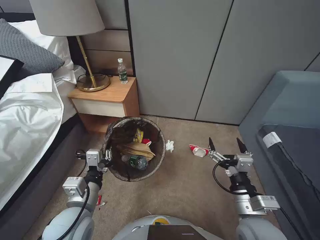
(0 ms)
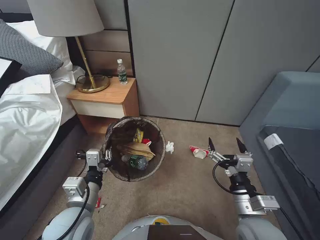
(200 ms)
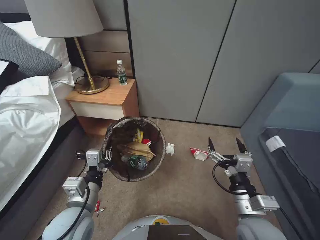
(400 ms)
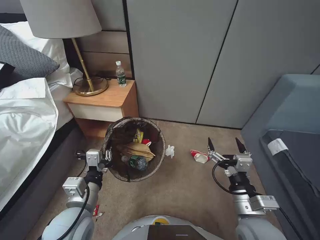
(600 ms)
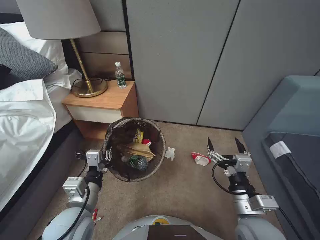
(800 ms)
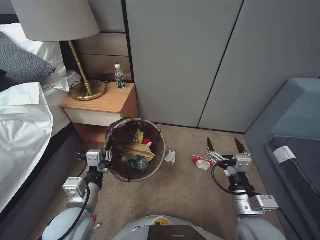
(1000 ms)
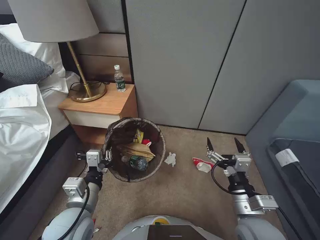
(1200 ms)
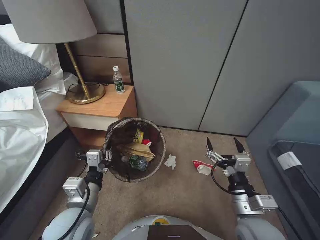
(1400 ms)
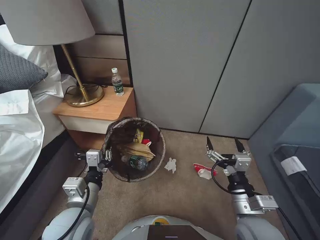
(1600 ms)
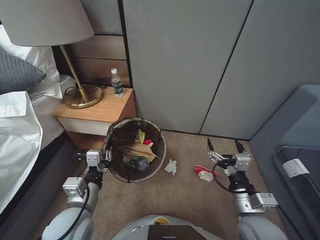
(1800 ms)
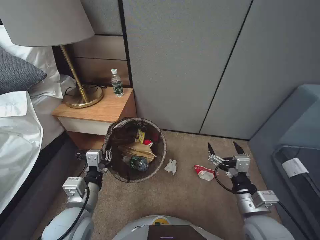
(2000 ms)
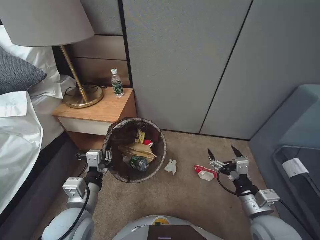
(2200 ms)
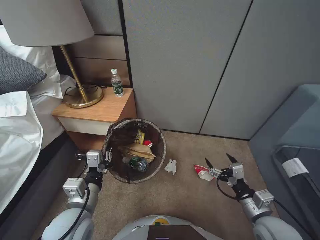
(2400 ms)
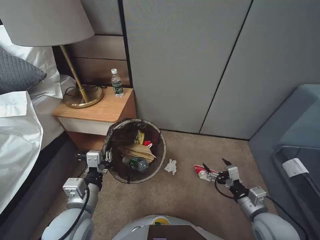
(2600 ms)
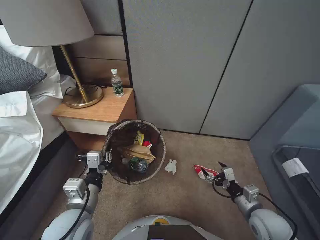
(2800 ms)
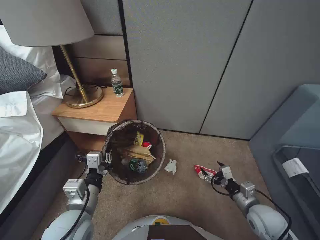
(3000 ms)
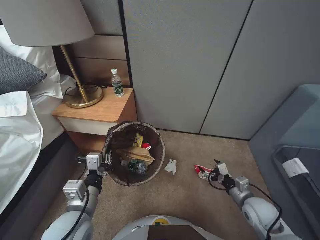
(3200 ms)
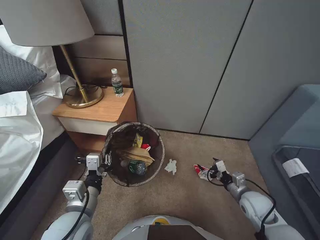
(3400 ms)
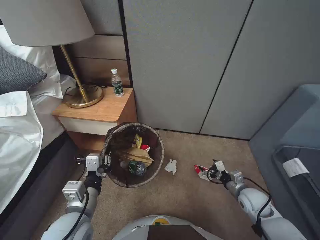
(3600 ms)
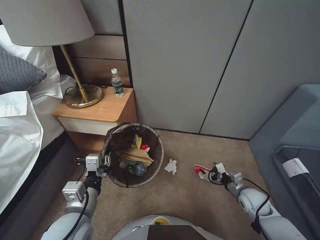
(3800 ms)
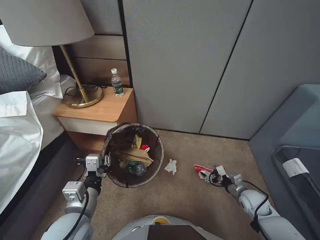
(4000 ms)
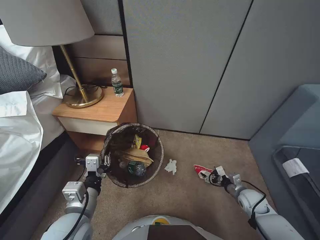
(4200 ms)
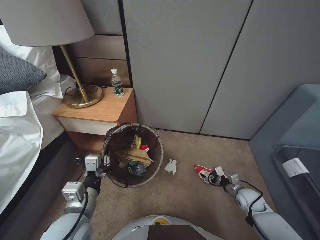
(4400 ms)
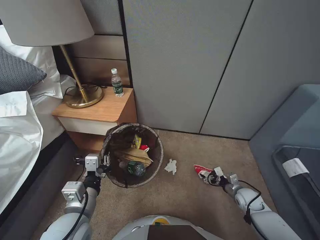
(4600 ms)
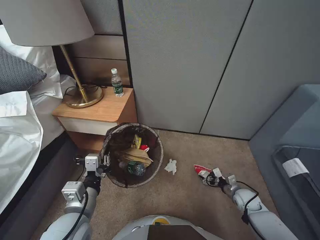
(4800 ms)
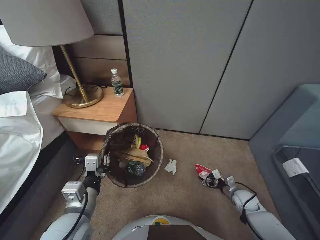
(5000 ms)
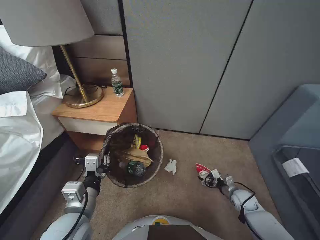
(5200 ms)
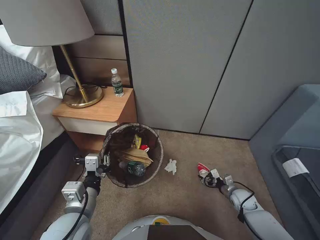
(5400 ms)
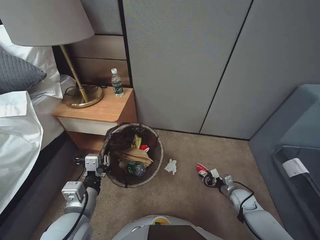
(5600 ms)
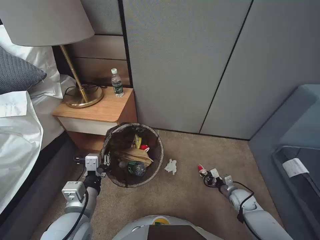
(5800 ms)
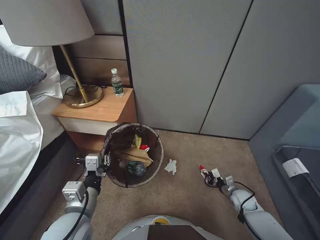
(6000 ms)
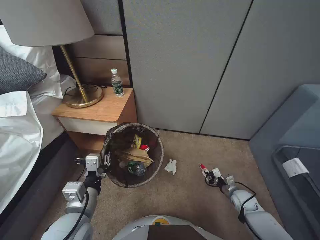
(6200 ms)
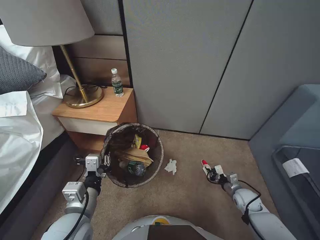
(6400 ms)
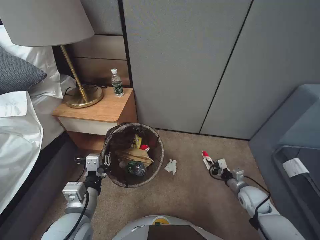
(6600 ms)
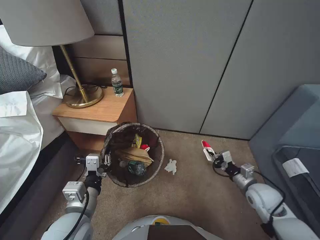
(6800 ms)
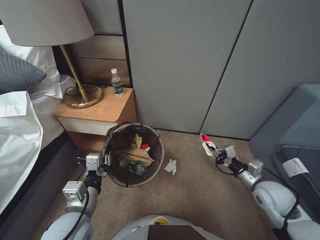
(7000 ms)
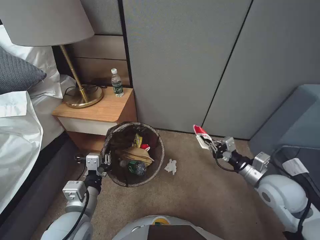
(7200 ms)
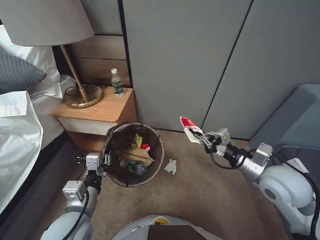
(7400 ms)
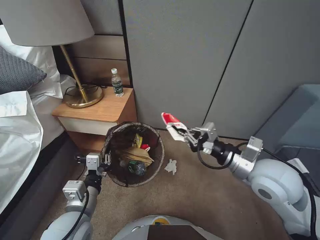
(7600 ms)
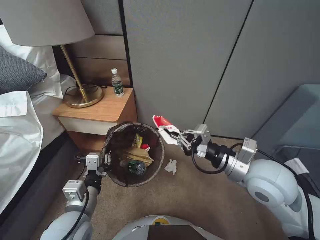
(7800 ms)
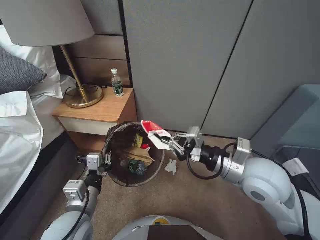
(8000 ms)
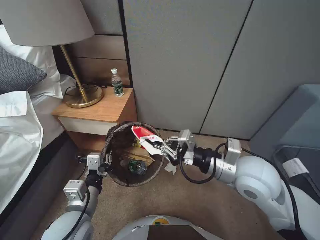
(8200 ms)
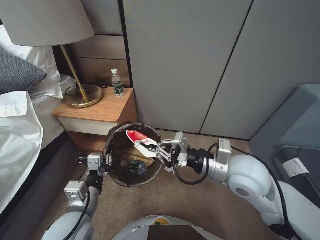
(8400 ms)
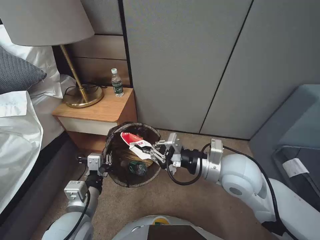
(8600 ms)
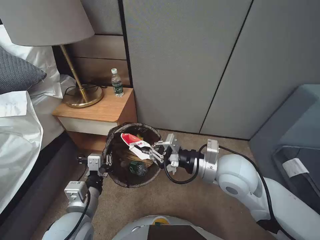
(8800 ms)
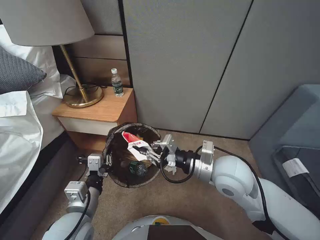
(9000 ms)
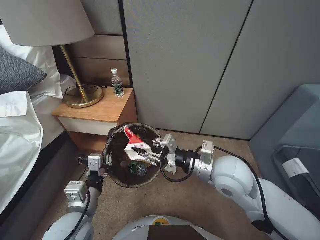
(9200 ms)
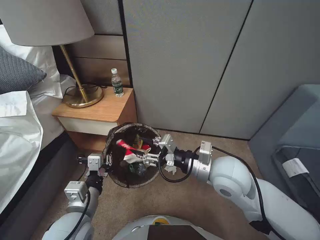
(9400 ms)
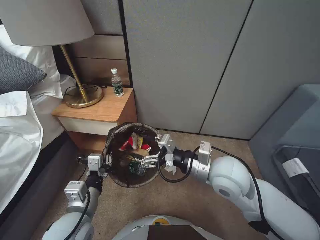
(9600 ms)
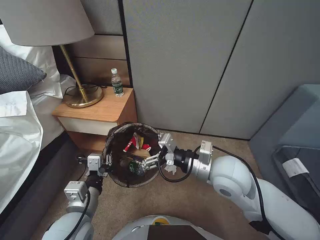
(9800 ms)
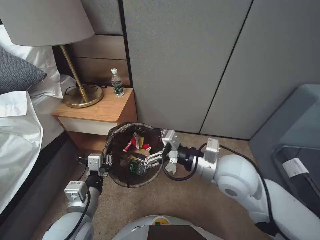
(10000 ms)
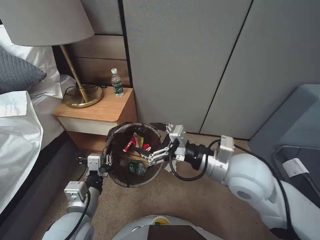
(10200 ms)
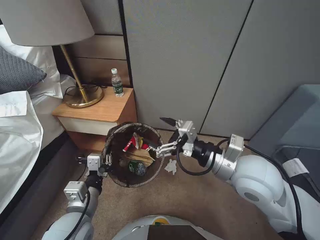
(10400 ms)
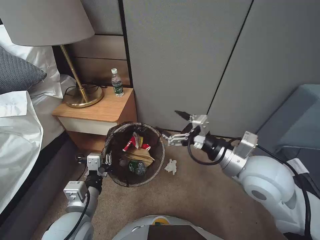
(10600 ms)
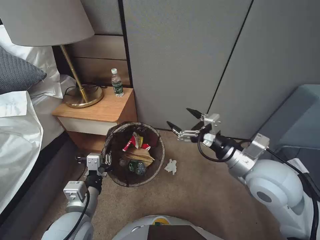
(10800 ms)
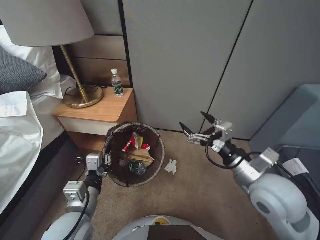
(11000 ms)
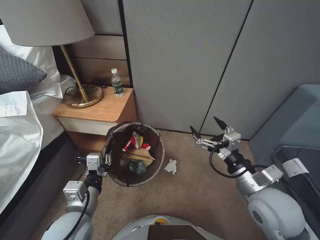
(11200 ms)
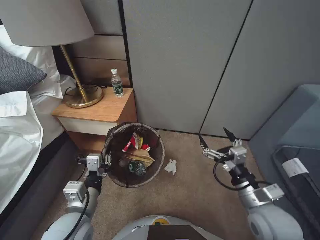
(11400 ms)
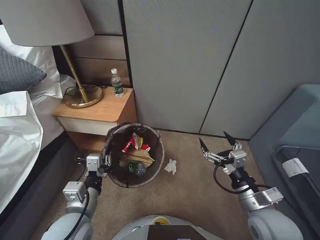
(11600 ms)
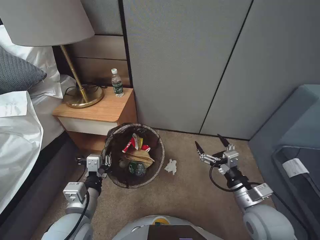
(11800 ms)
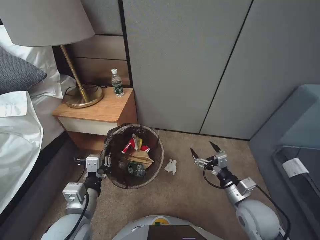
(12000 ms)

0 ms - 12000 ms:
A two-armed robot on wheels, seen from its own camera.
Task of the whole recording: Pick up the trash bin, then pick up the garbage from the floor and place it into the trash bin.
1600 ms - 3000 ms: The right gripper heads to the right and downward, covering about 15 cm.
3000 ms - 4400 ms: The right gripper shifts roughly 15 cm downward, forward and to the right.
4400 ms - 6000 ms: The right gripper closes.
6000 ms - 7600 ms: The right gripper is displaced upward by some 35 cm.
7600 ms - 9000 ms: The right gripper heads to the left, covering some 10 cm.
9000 ms - 10400 ms: The right gripper opens.
10400 ms - 12000 ms: The right gripper is displaced downward and to the right by roughly 20 cm.

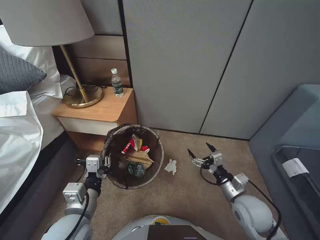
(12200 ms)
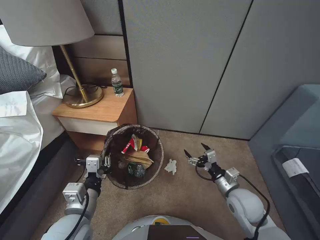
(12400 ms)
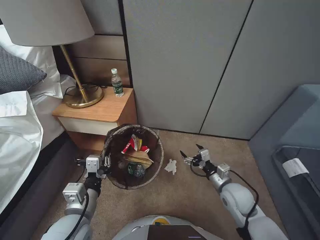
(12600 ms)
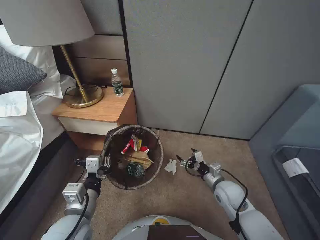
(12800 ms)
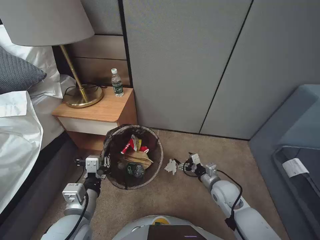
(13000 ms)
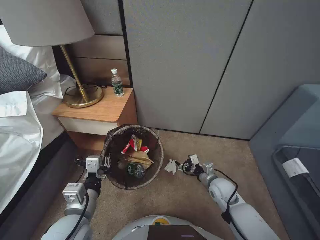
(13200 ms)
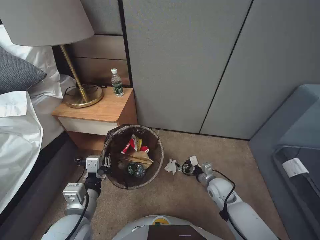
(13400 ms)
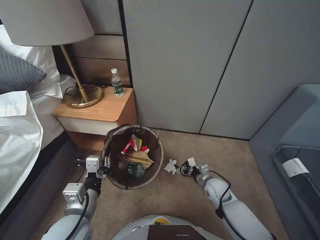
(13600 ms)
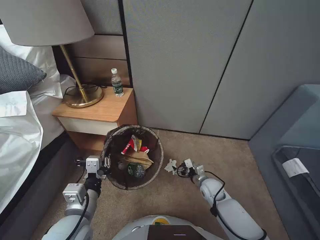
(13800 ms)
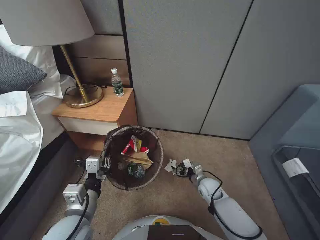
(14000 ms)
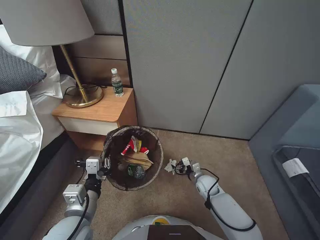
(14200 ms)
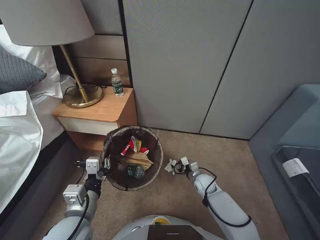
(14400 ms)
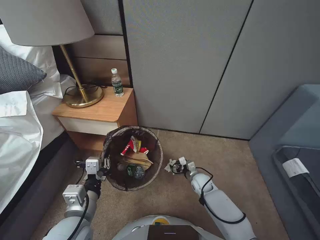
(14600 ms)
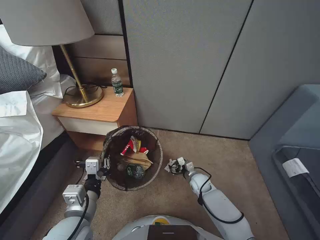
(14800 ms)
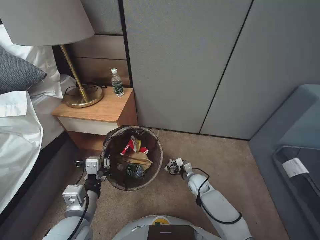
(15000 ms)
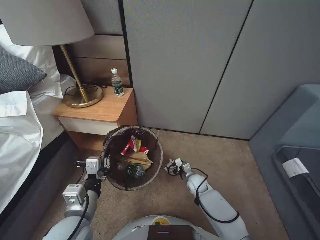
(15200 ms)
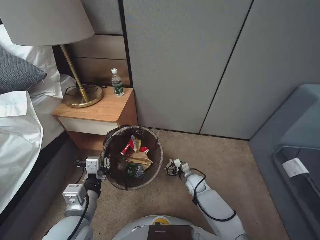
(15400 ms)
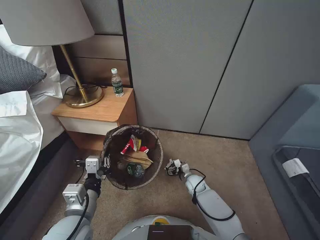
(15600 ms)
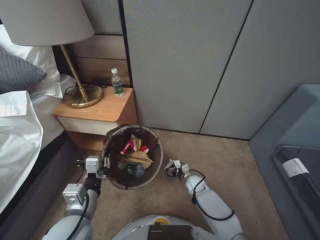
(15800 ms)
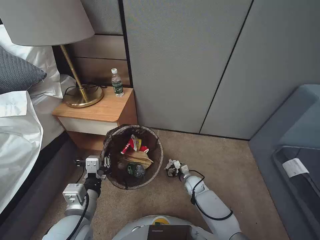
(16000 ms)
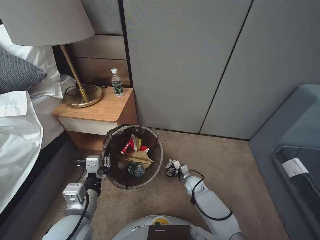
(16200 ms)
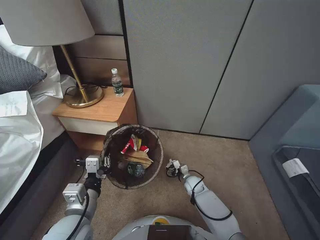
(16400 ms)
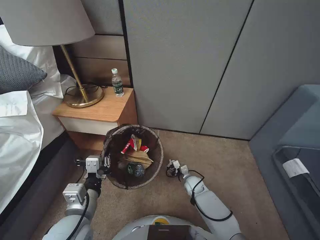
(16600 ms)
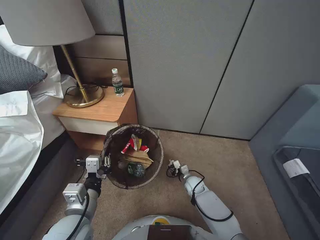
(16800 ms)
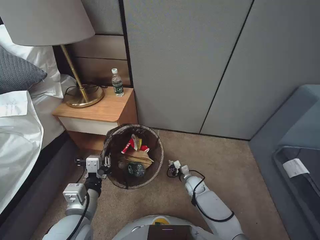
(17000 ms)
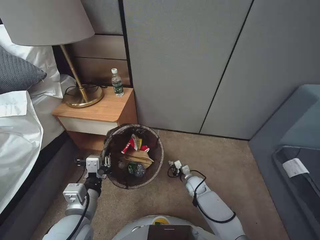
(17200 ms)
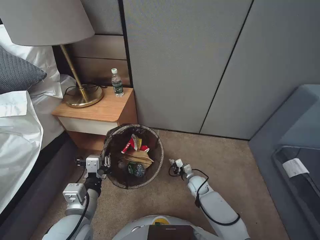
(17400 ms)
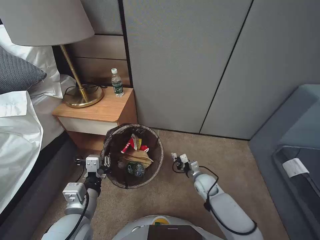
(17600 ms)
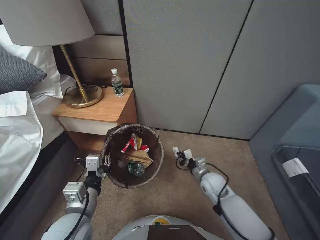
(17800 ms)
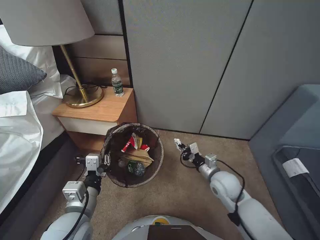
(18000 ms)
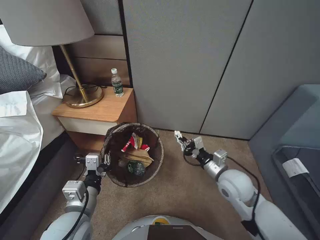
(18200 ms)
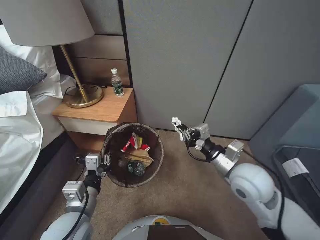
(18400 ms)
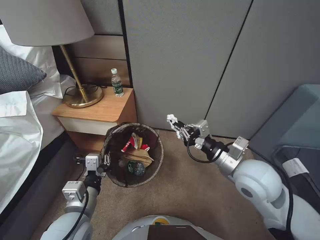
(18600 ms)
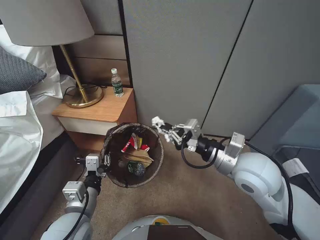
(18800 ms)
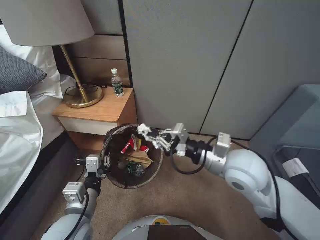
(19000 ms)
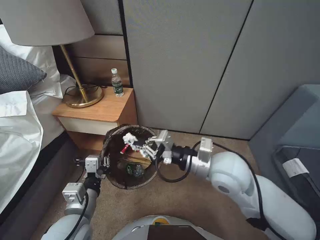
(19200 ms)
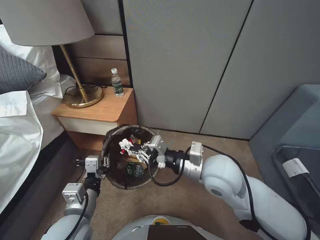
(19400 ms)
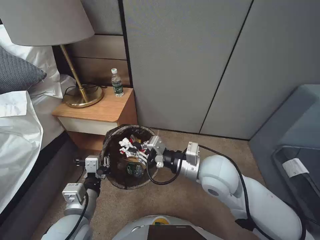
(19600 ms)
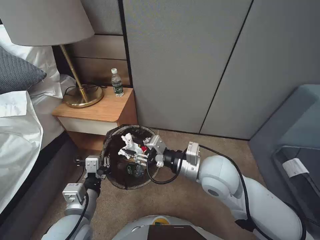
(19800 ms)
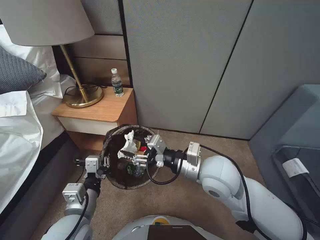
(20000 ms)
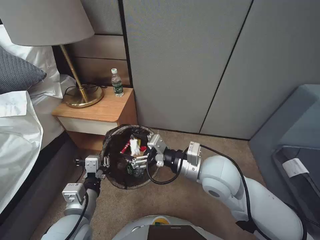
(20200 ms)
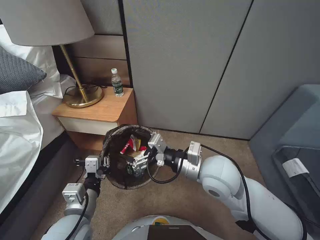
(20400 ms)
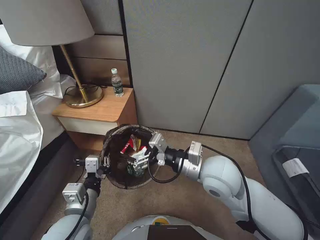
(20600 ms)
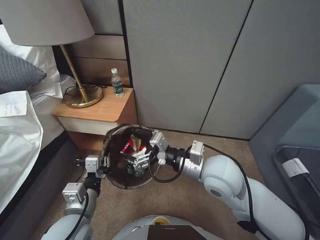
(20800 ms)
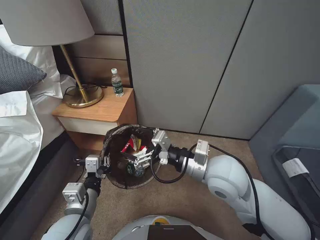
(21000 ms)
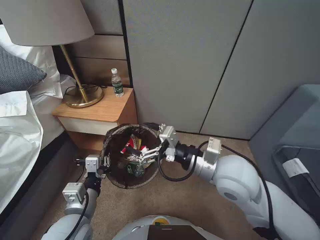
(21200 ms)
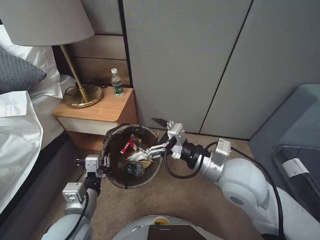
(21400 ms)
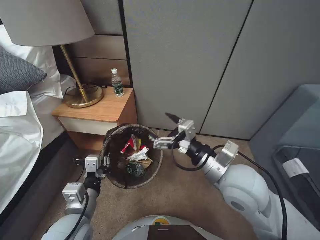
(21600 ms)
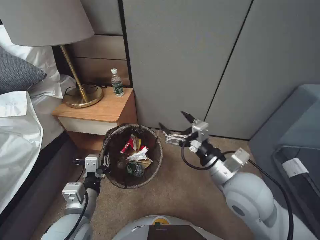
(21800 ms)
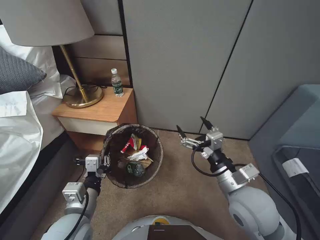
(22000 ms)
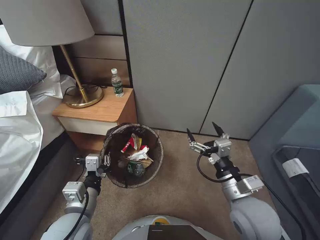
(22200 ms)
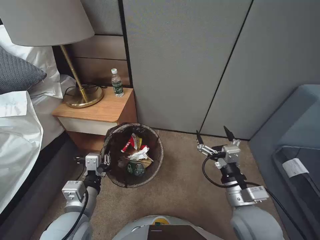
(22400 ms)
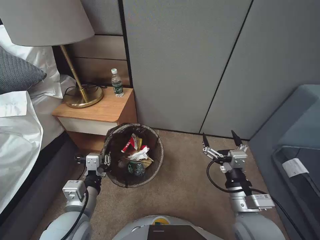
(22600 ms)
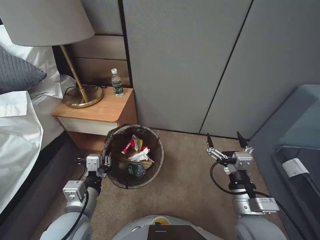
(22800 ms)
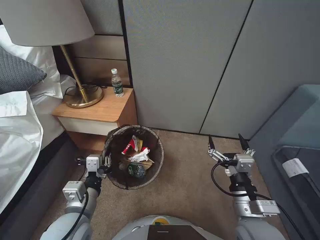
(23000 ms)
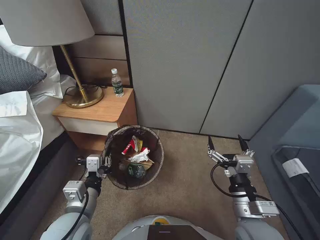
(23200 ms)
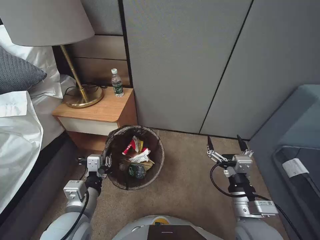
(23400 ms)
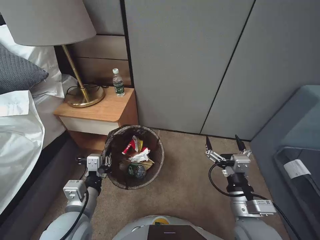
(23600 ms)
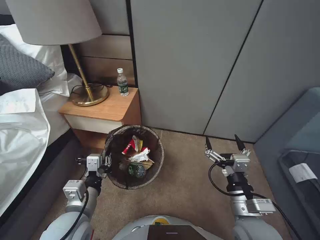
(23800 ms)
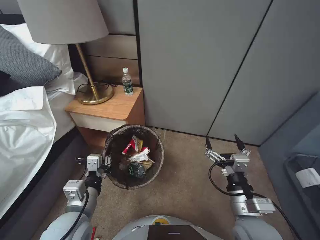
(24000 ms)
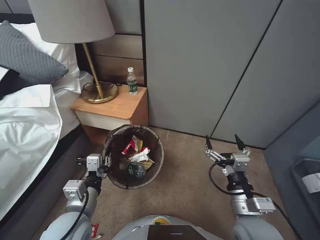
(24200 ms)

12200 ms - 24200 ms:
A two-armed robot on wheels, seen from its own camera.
Task of the whole recording: Pick up the trash bin, then pick up the garbage from the floor and place it into the trash bin.
12200 ms - 13800 ms: The right gripper is displaced downward and forward by some 20 cm.
13800 ms - 15200 ms: The right gripper is displaced downward by some 5 cm.
15200 ms - 16600 ms: The right gripper closes.
16600 ms - 18200 ms: The right gripper goes roughly 25 cm upward, and closes.
18200 ms - 19800 ms: The right gripper goes some 15 cm upward and to the left.
19800 ms - 21200 ms: The right gripper opens up.
21200 ms - 22600 ms: The right gripper goes about 15 cm downward, backward and to the right.
